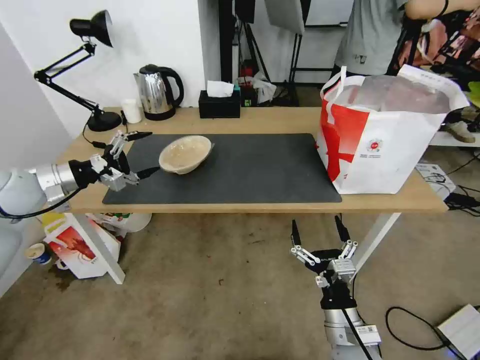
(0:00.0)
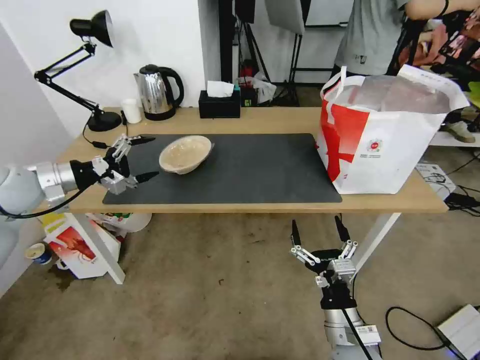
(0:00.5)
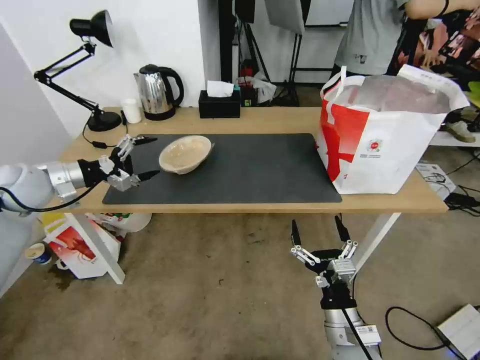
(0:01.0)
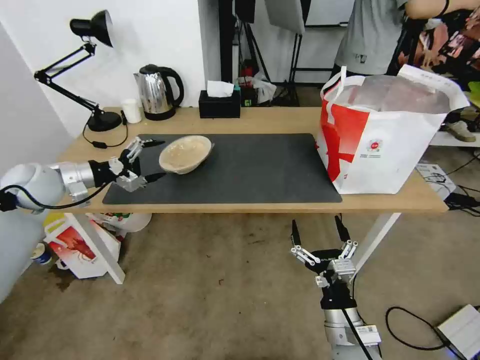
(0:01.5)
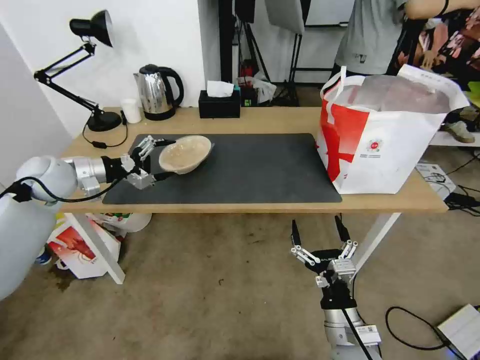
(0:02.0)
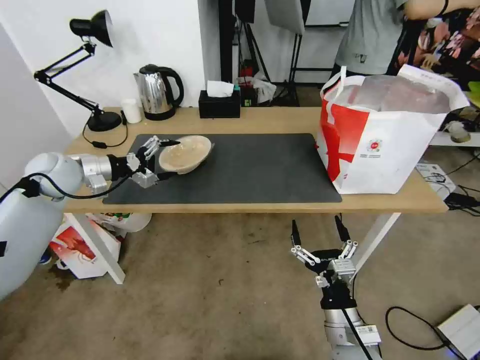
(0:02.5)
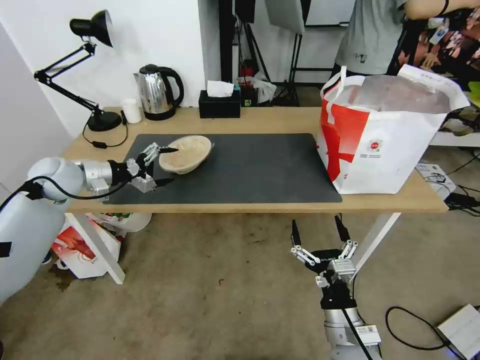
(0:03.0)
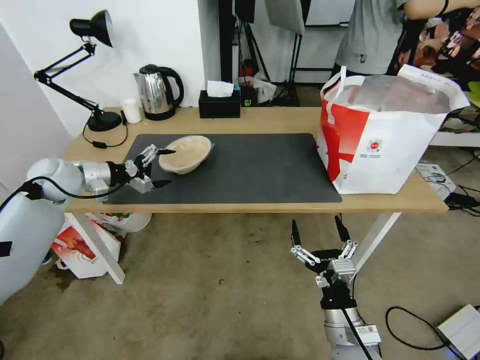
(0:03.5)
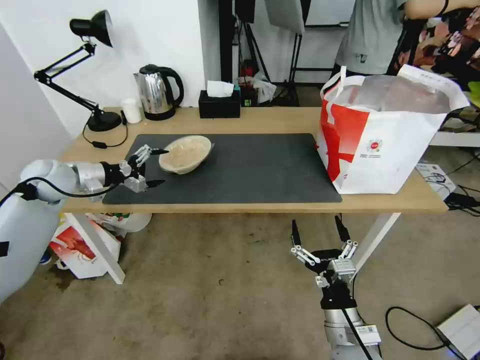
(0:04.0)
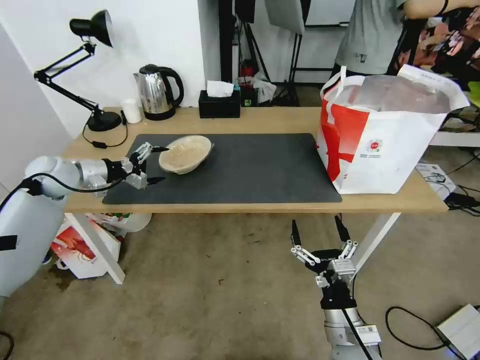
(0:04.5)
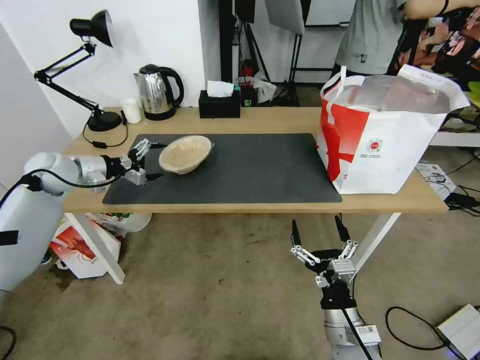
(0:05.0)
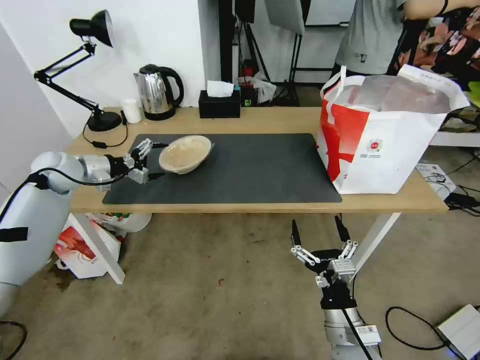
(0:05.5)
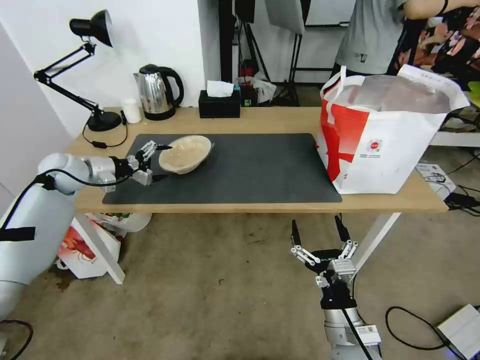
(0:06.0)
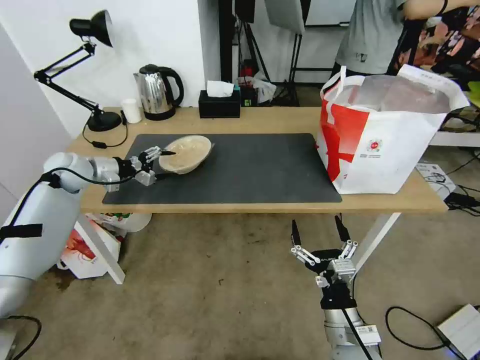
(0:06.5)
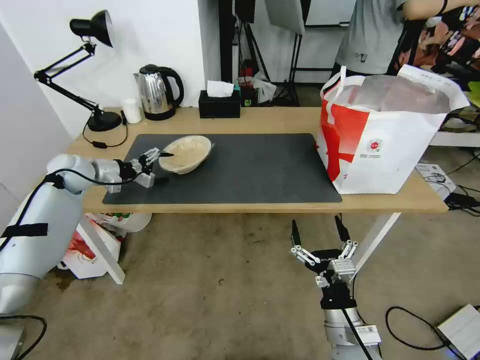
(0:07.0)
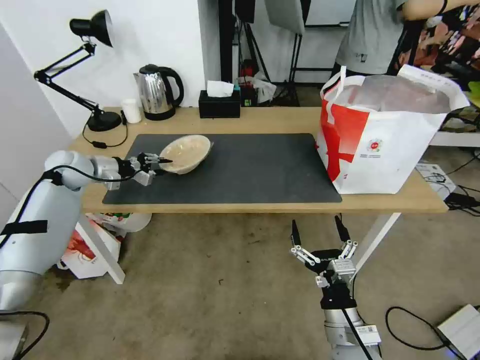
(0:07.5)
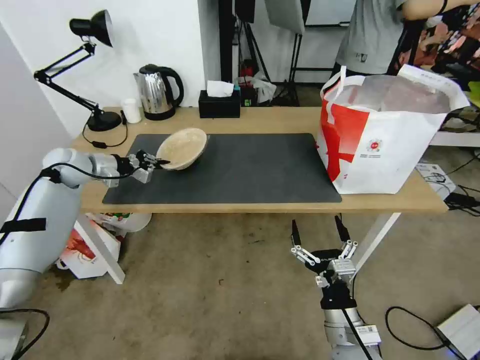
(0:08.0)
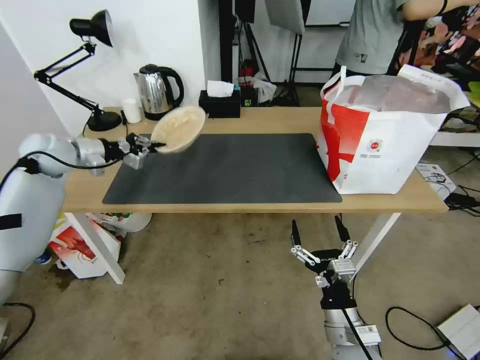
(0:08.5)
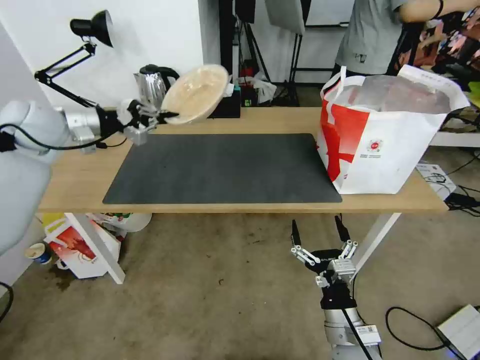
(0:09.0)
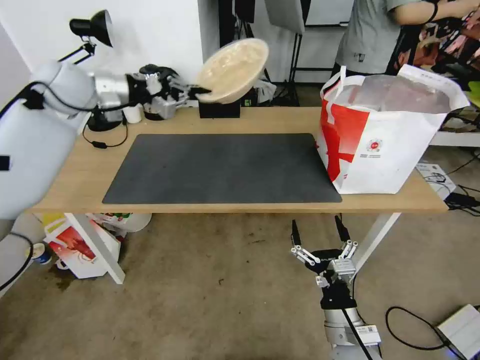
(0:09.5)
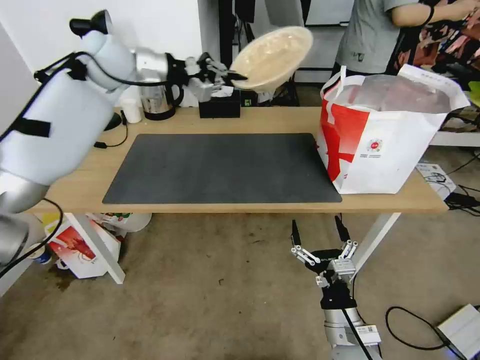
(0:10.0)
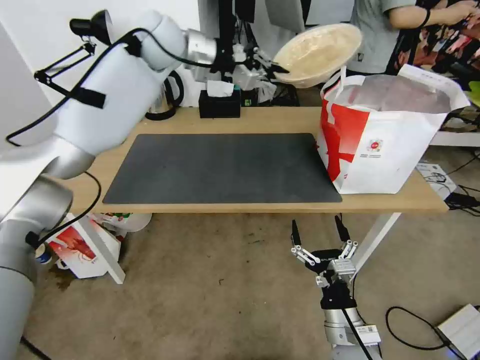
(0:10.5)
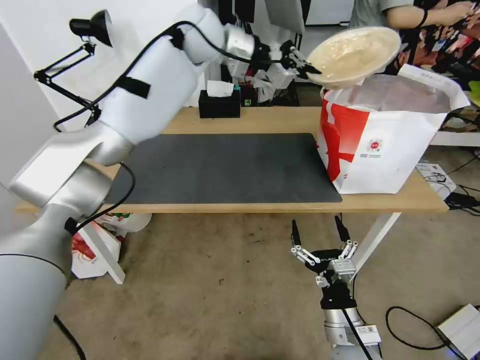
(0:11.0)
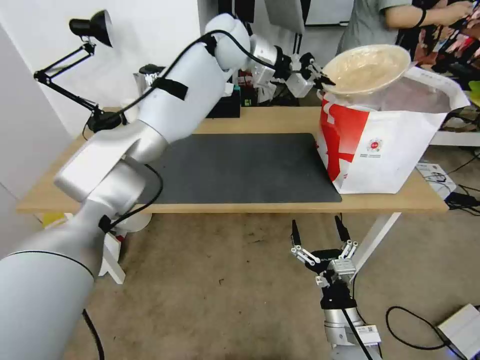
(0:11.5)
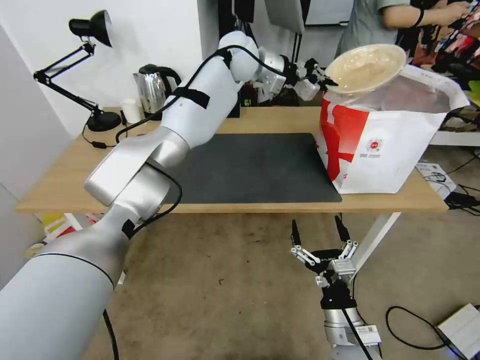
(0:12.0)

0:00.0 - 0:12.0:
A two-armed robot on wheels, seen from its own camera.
Task of the whole recording: Pick up the trash from the table and place it into the takeout bag.
0:00.0 - 0:02.0: The left gripper travels forward by some 5 cm.
0:02.0 - 0:06.0: The grippers make only small movements.
0:06.0 - 0:08.0: The left gripper closes.
0:08.0 - 0:10.0: The left gripper moves upward and to the right, approximately 30 cm.
0:10.0 - 0:12.0: The left gripper moves to the right, roughly 25 cm.

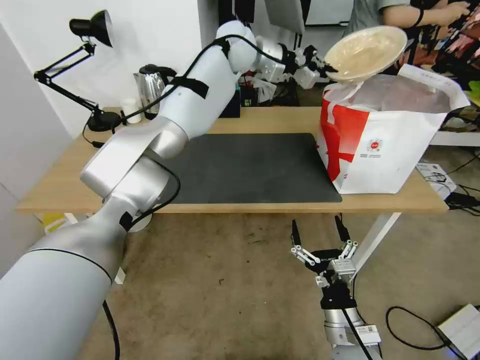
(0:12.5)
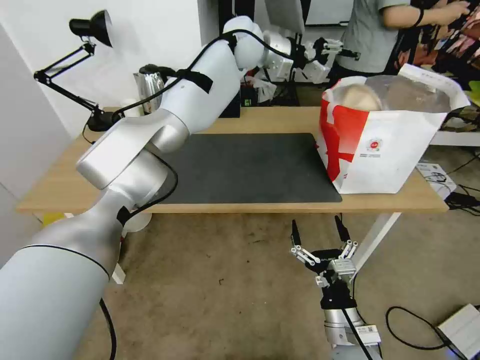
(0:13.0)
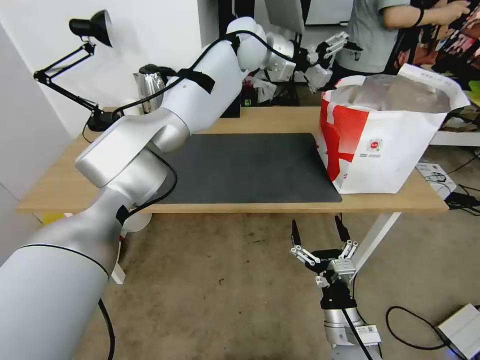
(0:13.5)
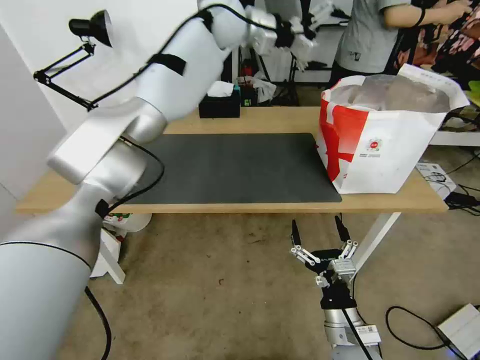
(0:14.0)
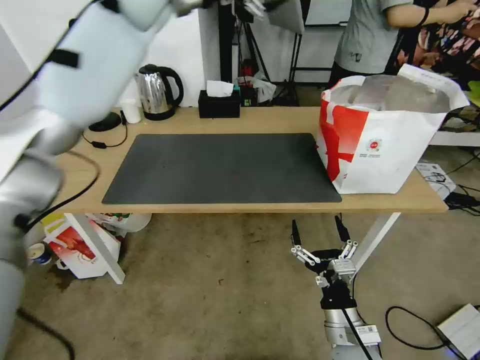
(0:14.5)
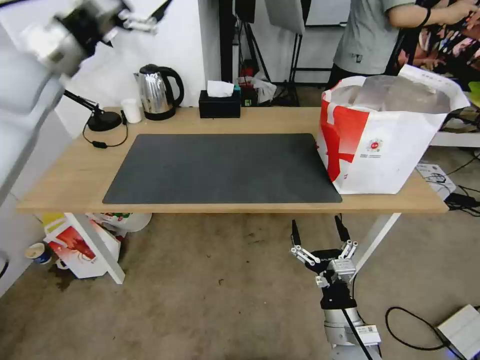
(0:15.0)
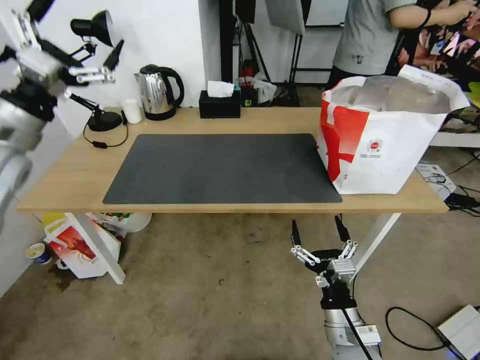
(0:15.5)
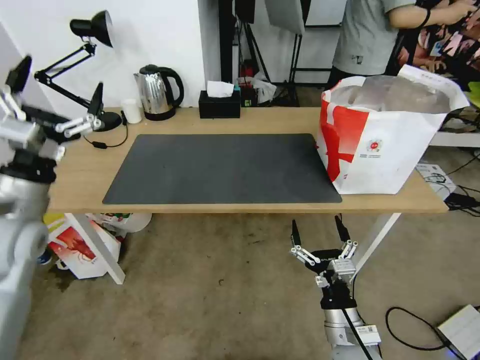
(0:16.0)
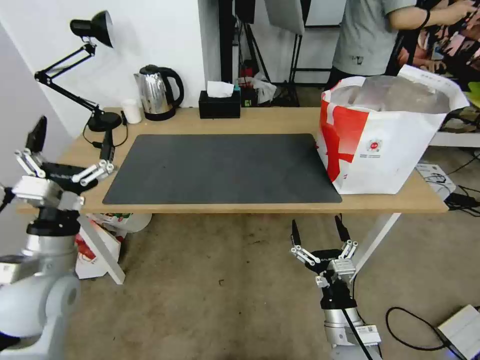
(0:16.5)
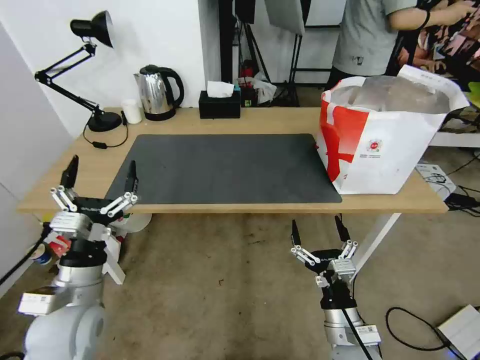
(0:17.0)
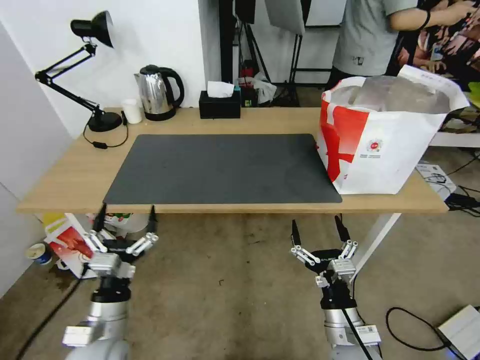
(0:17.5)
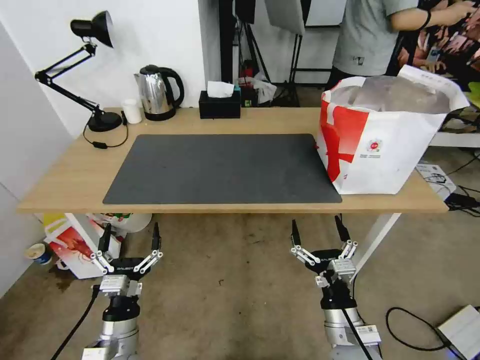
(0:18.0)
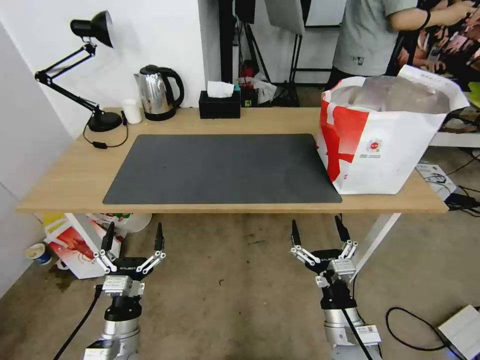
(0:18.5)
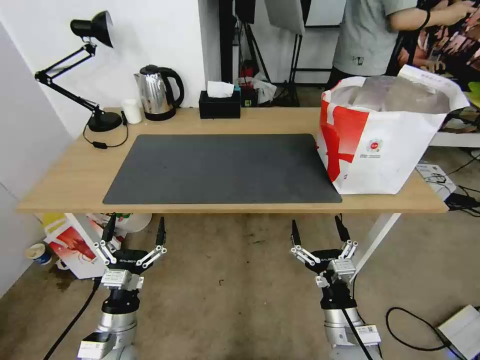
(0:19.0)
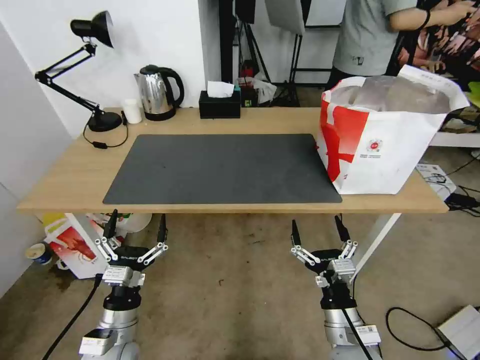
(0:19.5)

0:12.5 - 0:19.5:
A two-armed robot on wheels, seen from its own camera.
Task of the whole recording: Pick up the trash from the table and place it into the takeout bag.
0:12.5 - 0:14.5: The left gripper is displaced to the left and upward by some 20 cm, and opens up.
0:14.5 - 0:16.0: The left gripper travels backward, downward and to the left by approximately 50 cm.
0:16.0 - 0:17.5: The left gripper shifts roughly 25 cm downward, backward and to the right.
0:17.5 - 0:19.5: The grippers stay close to where they were, moving slightly.
